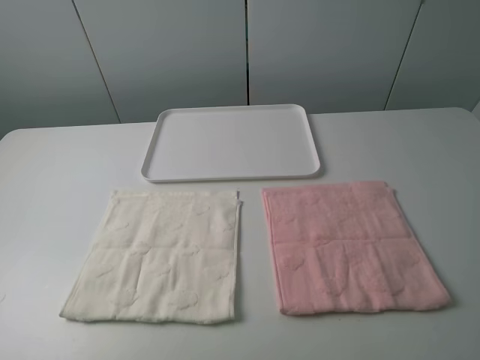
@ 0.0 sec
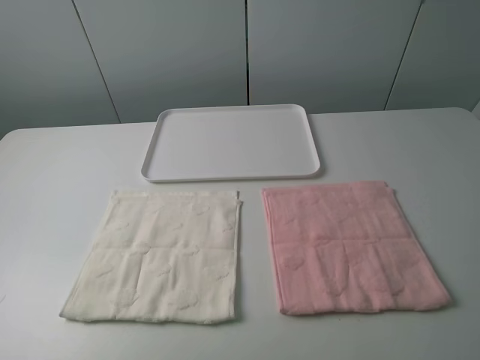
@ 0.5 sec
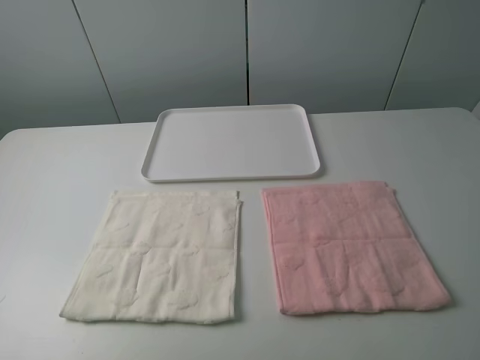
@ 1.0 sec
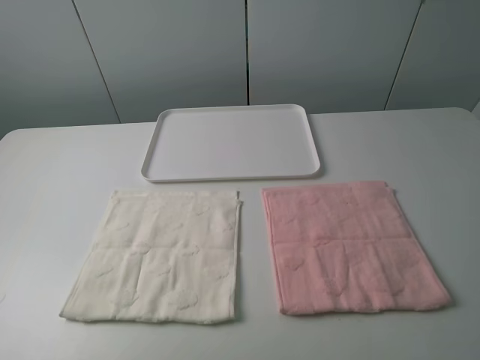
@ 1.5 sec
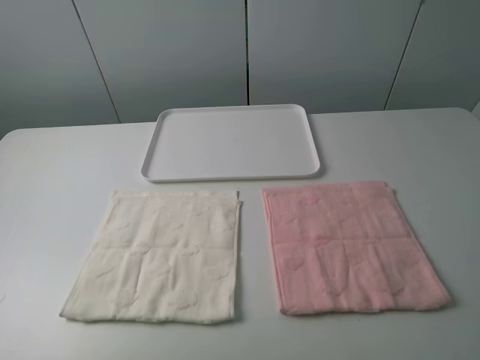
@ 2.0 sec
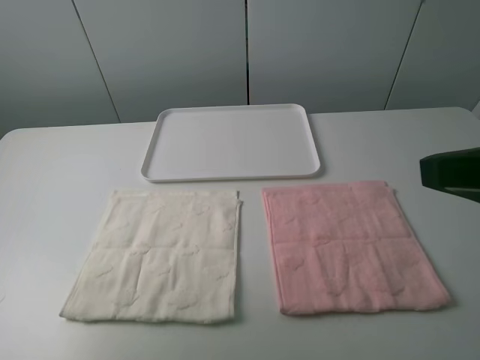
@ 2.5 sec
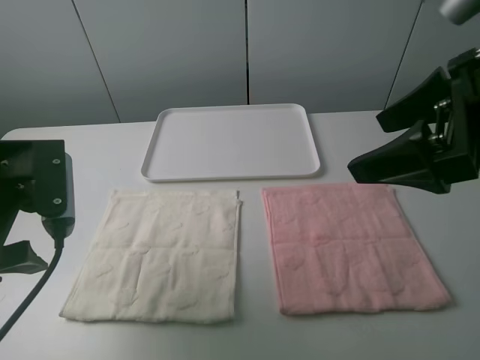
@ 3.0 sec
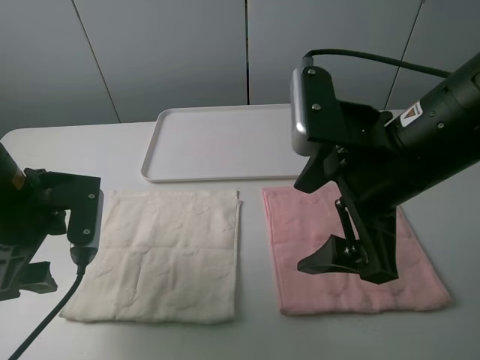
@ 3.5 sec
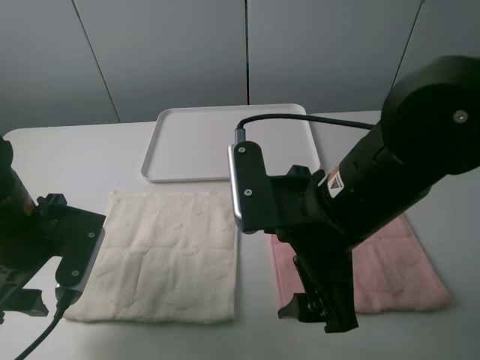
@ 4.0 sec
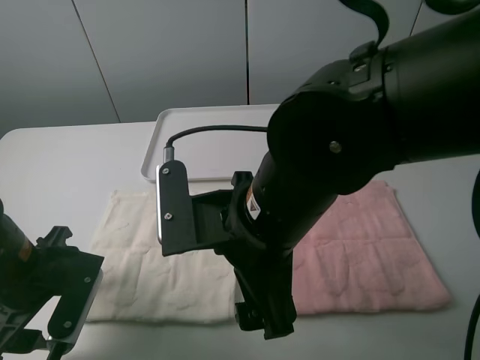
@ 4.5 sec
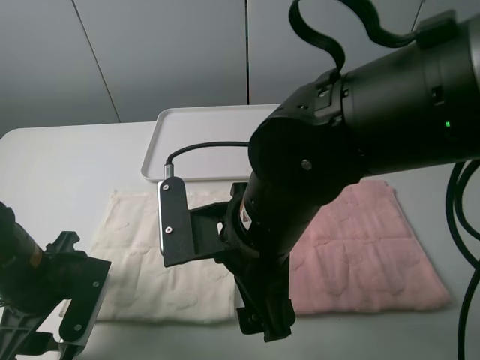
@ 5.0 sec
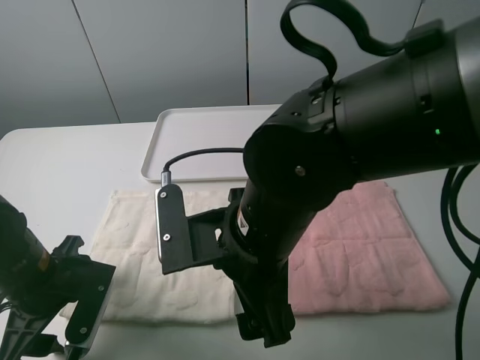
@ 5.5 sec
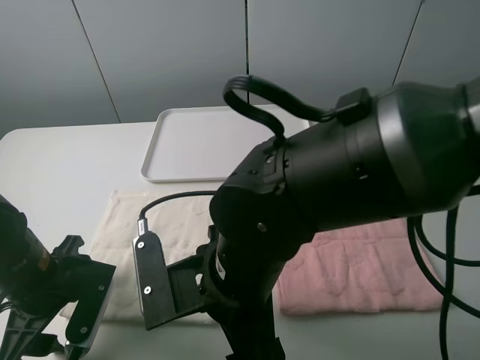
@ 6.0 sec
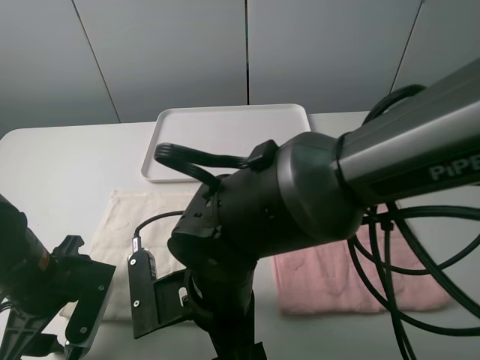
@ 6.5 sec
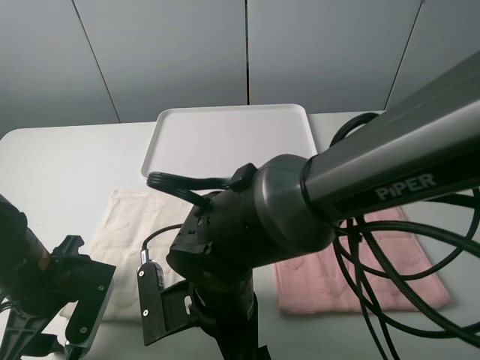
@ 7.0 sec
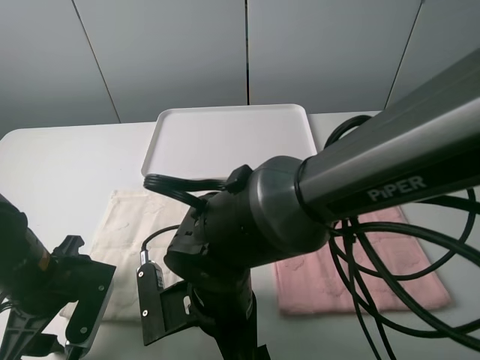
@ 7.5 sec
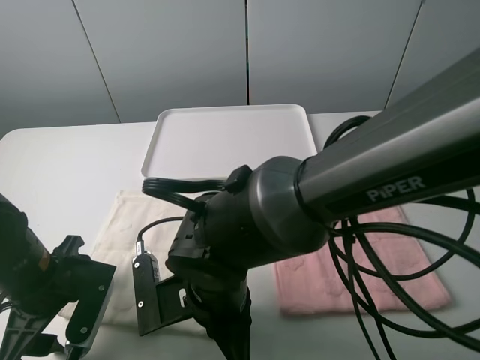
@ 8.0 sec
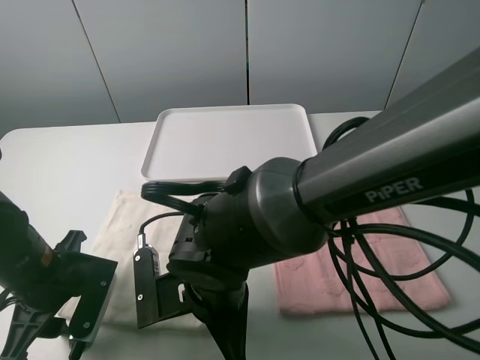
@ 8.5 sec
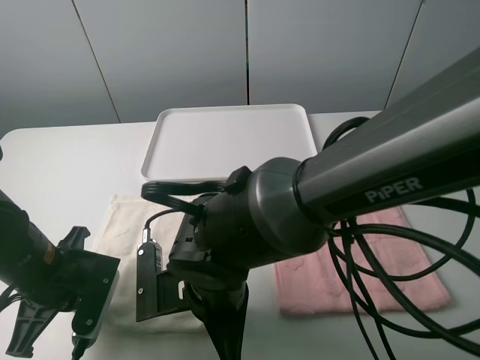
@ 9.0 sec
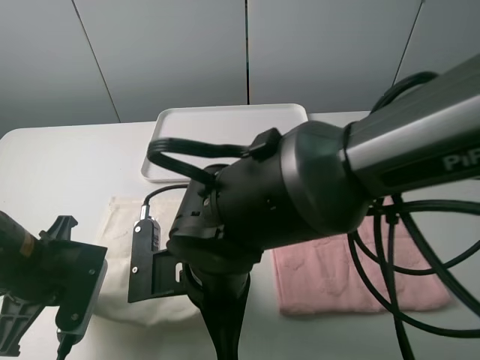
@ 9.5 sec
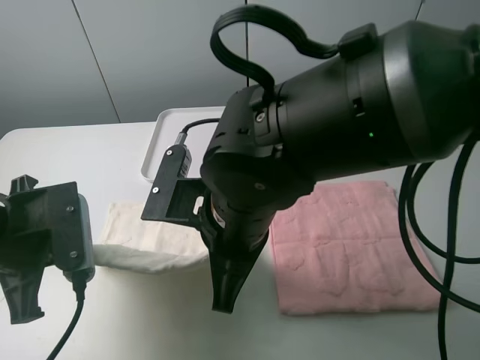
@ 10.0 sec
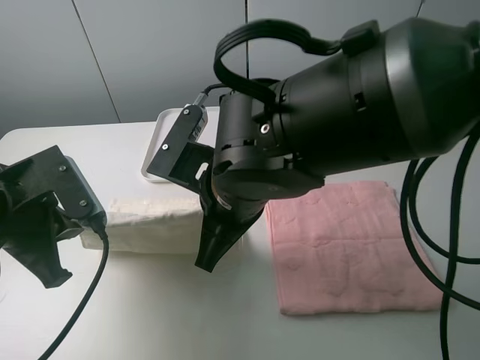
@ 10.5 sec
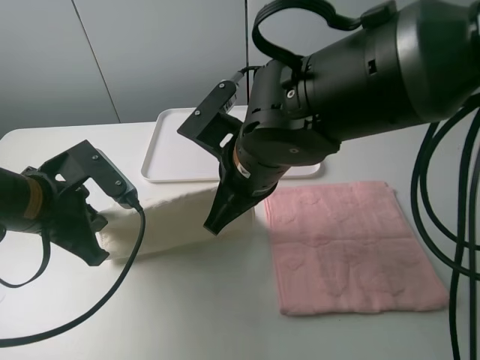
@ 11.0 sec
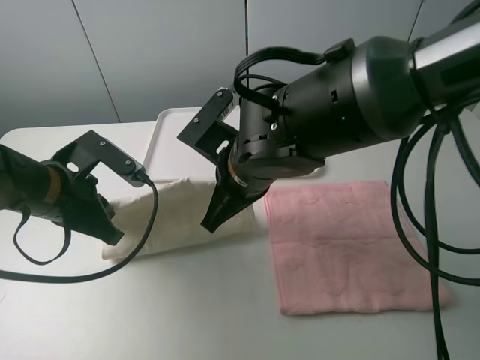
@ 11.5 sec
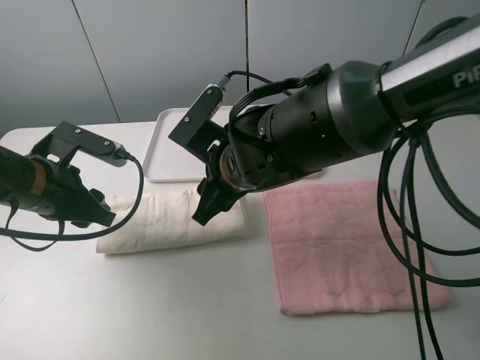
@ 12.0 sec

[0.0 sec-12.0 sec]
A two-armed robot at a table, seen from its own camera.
Task of the whole recording: fold one of the towels by two grippers and place it on the tray,then fold another towel by two grippers and place it on the folded towel.
Step, 0.0 sec to 9.0 sec: Grasp the white towel with the left gripper.
2.0 sec to 4.0 sec: The left gripper moves forward, downward and to the right, roughly 25 cm, while the right gripper moves to the left, forward and downward, approximately 25 cm.
4.0 sec to 6.0 sec: The right gripper shifts approximately 10 cm to the left and downward; the left gripper shifts approximately 5 cm downward.
6.0 sec to 8.0 sec: The right gripper shifts roughly 5 cm downward, and closes its fingers.
8.0 sec to 10.0 sec: The grippers both shift upward by roughly 10 cm. The left gripper closes its fingers.
10.0 sec to 12.0 sec: Both grippers travel together forward, approximately 10 cm. The right gripper opens; the left gripper opens up.

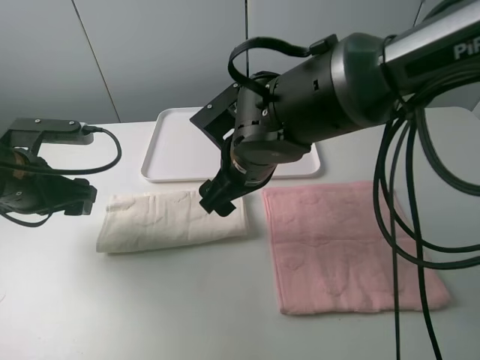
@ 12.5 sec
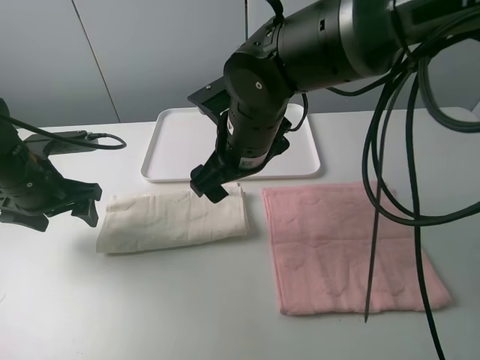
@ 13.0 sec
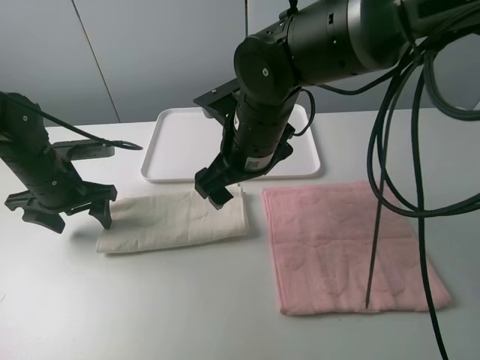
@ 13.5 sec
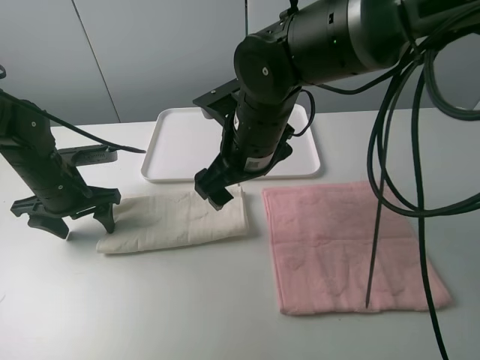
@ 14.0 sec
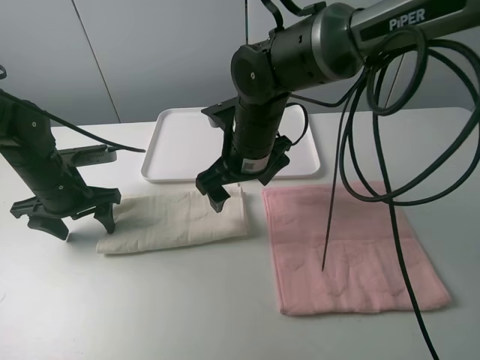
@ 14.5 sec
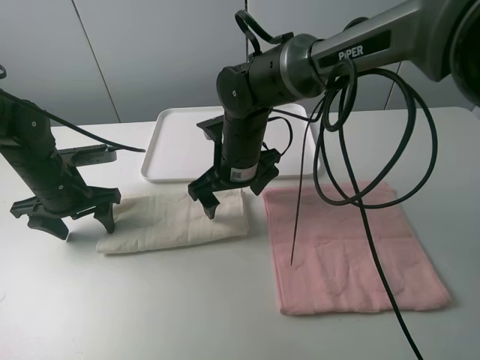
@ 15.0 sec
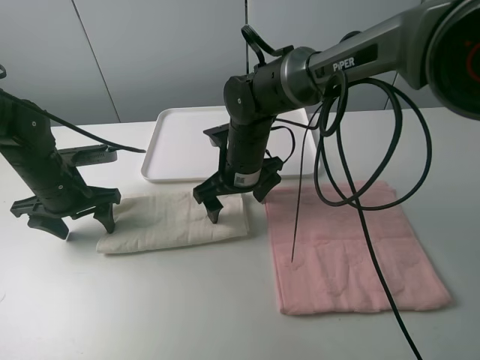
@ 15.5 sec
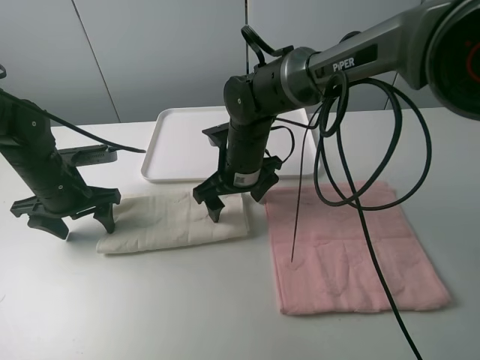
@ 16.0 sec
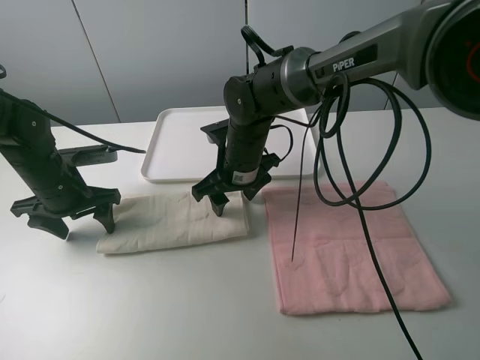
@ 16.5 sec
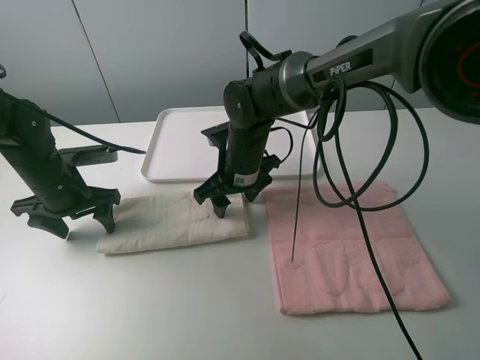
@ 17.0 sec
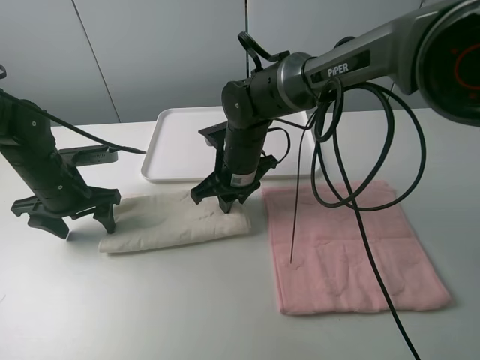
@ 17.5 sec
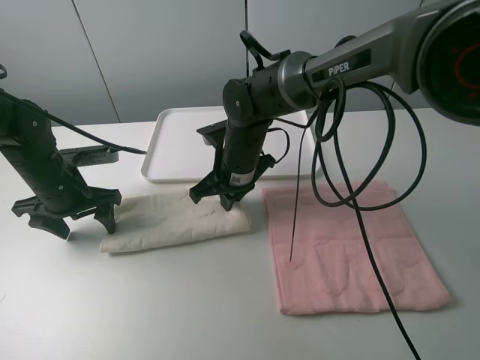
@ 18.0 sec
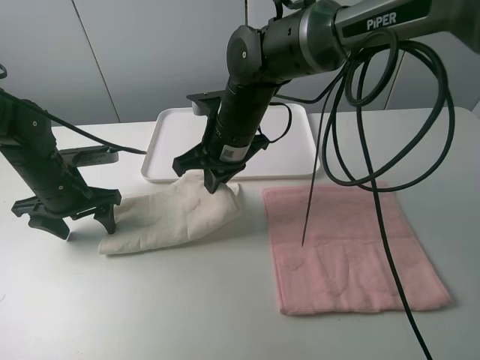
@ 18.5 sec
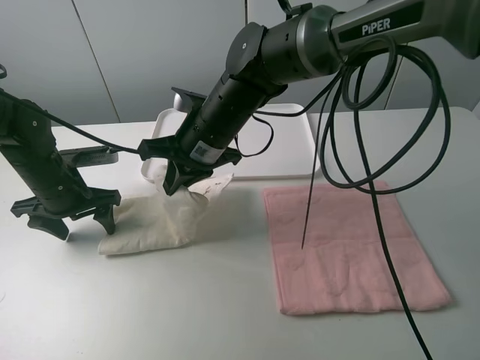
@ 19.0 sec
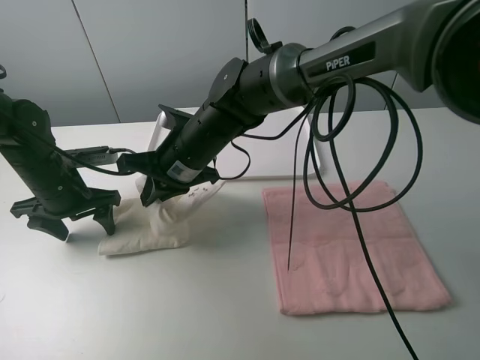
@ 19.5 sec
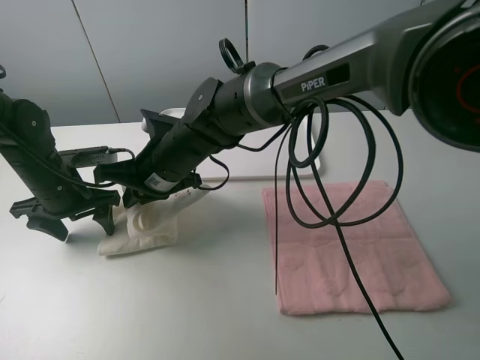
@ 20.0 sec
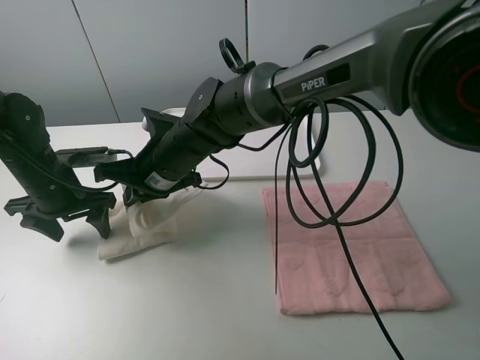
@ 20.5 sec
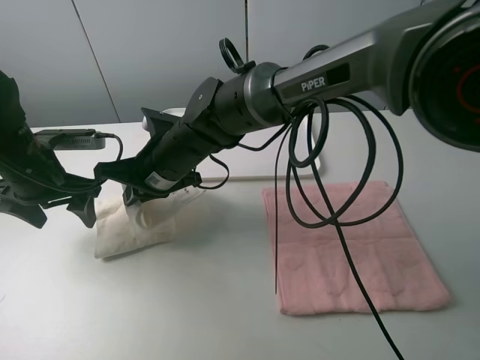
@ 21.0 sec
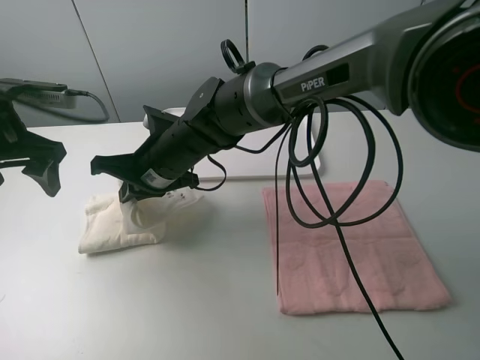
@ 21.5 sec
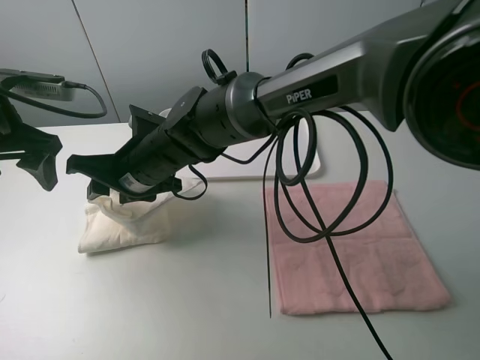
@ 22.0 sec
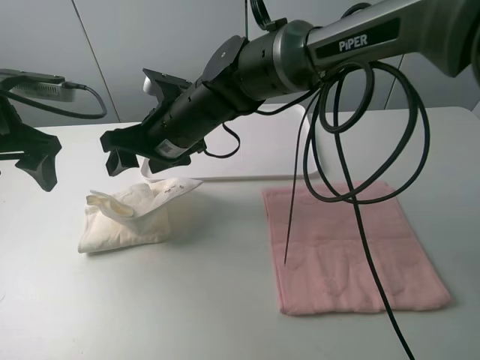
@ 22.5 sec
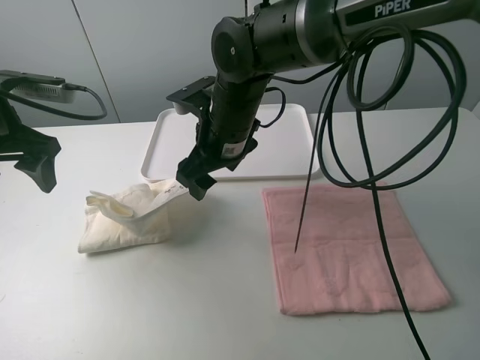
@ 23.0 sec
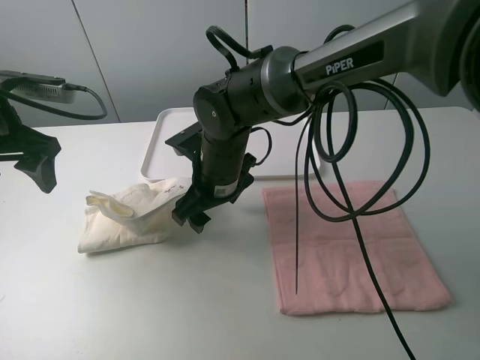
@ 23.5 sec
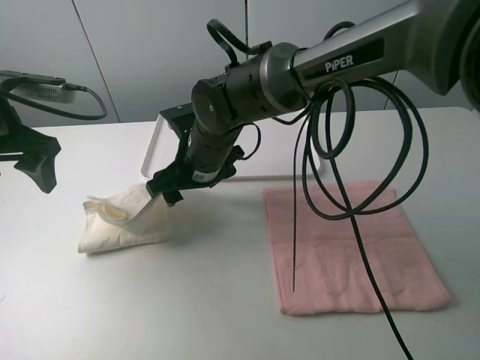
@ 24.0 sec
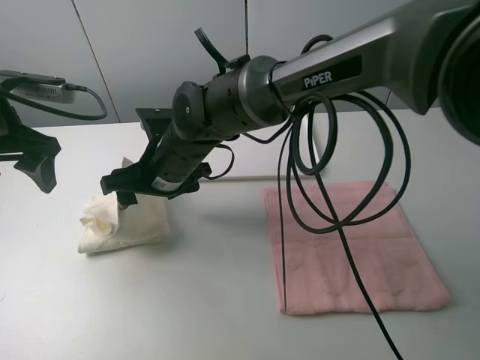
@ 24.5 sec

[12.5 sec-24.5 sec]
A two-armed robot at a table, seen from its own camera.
Task of the whole recording: fold one of the towels by two grippers and place it on the tray,then fold another towel by two grippers and place it on the folded towel.
Step, 12.5 sec to 14.0 sec: Press the white towel with the left gripper.
Step, 14.5 sec to 17.5 sec: Grasp the white towel with the right gripper.
12.5 sec to 14.5 sec: The left gripper moves downward and forward, roughly 10 cm.
14.5 sec to 16.5 sec: The right gripper moves roughly 5 cm.
16.5 sec to 18.5 sec: The right gripper heads upward, covering about 5 cm, and closes up.
18.5 sec to 20.5 sec: The right gripper travels to the left by roughly 10 cm.
20.5 sec to 22.5 sec: The left gripper travels upward by approximately 15 cm, while the right gripper travels upward by approximately 5 cm, and opens.
22.5 sec to 24.5 sec: The right gripper reaches roughly 5 cm to the right, then returns.

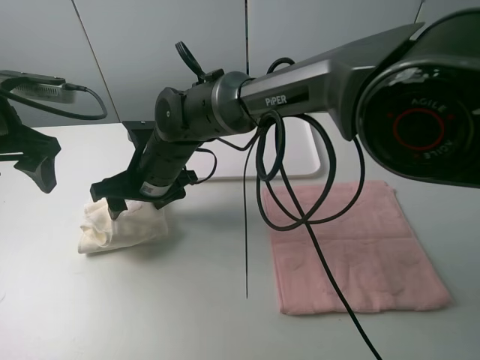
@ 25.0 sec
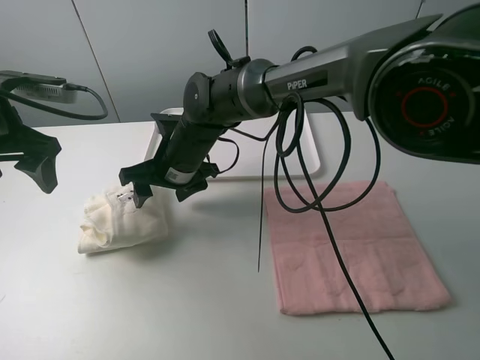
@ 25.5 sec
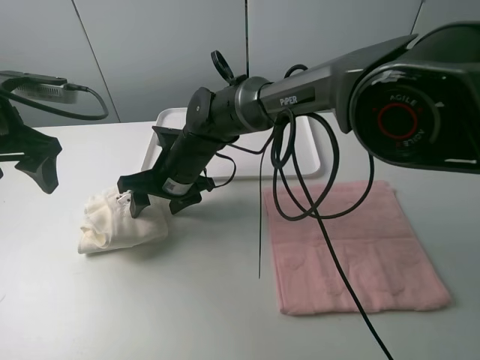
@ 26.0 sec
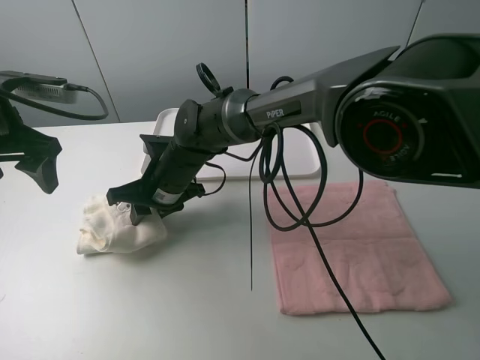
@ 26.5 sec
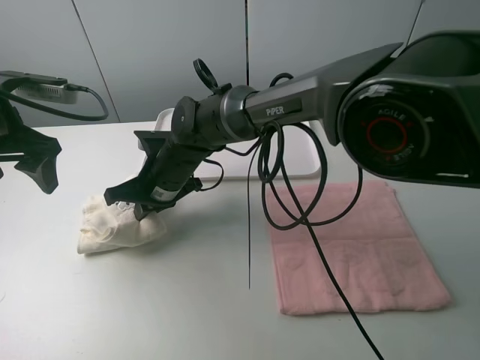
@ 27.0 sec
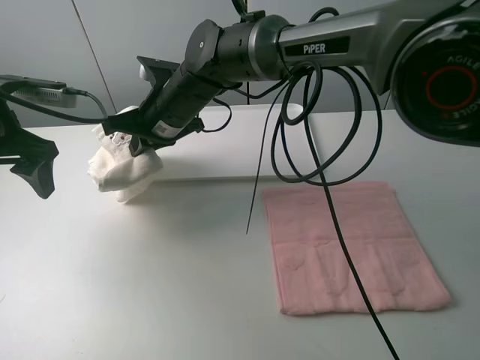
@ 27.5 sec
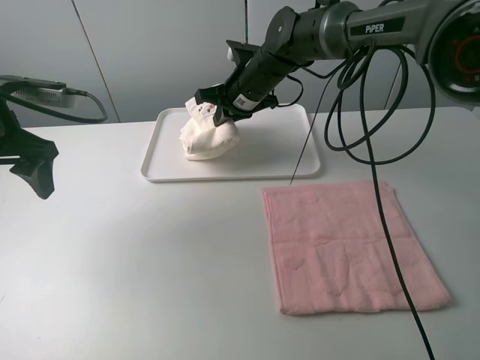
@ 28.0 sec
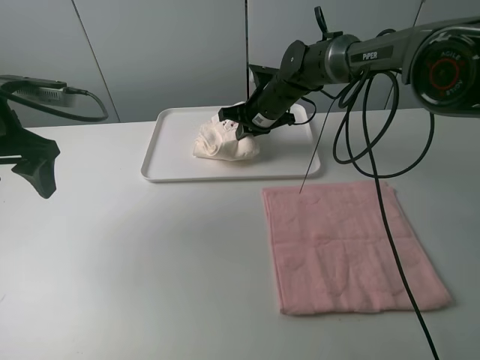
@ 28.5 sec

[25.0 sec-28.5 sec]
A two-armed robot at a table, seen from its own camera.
Task of the whole recording: fold one of the towels by two grippers and place it on the tray,then fold another towel by two grippers and place it on the folded towel.
Step, 25.5 sec to 26.5 sec: Grasp the white towel with the right gripper.
25.0 sec to 27.0 sec: The right gripper closes up.
27.0 sec to 28.5 sec: The right gripper heads to the right and forward, covering some 20 cm.
